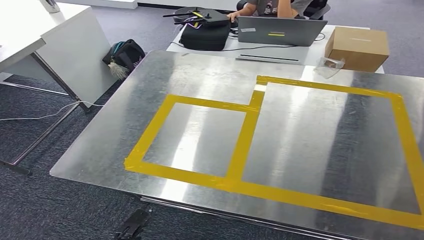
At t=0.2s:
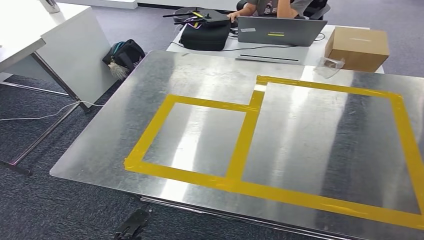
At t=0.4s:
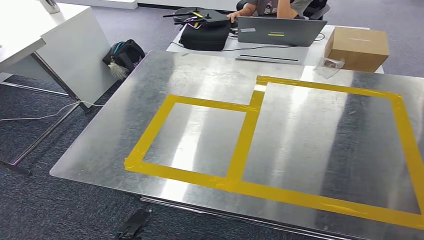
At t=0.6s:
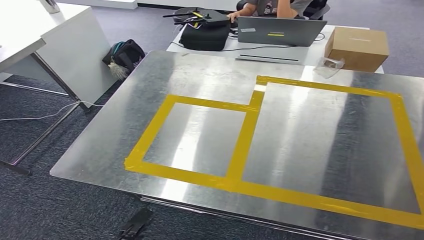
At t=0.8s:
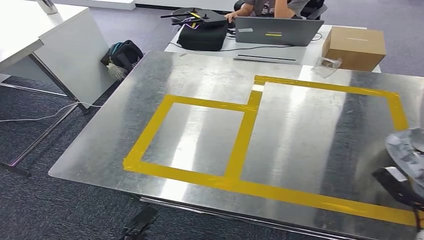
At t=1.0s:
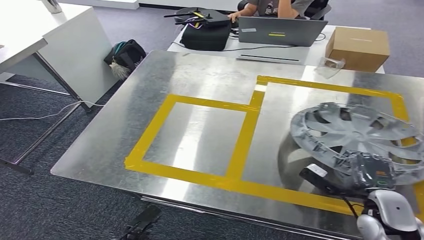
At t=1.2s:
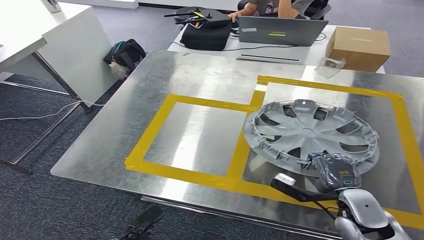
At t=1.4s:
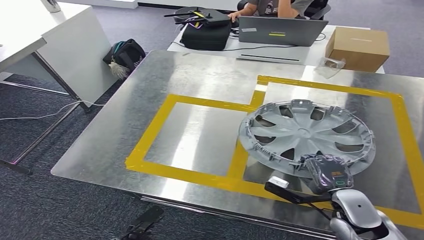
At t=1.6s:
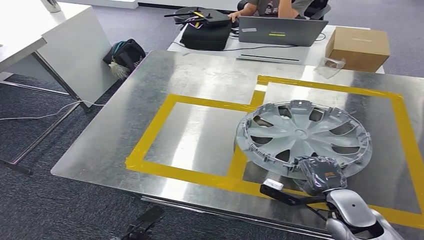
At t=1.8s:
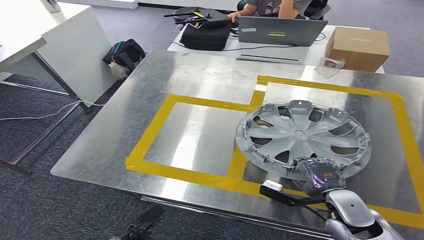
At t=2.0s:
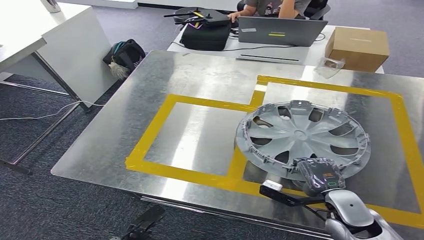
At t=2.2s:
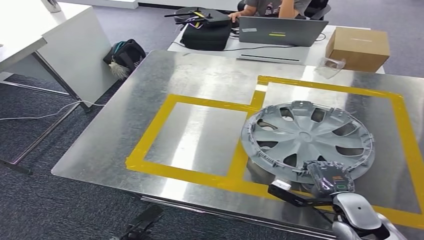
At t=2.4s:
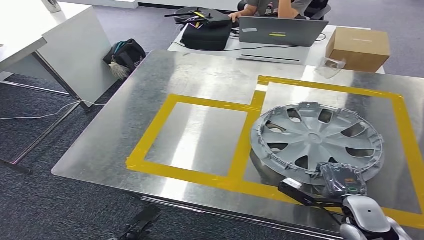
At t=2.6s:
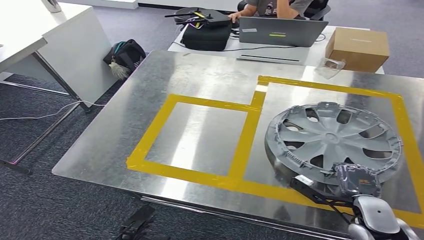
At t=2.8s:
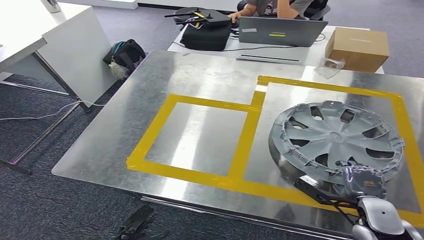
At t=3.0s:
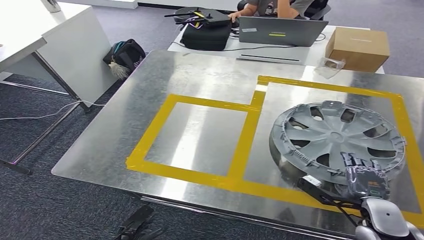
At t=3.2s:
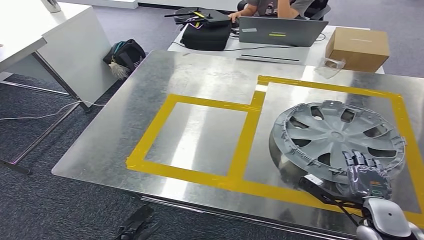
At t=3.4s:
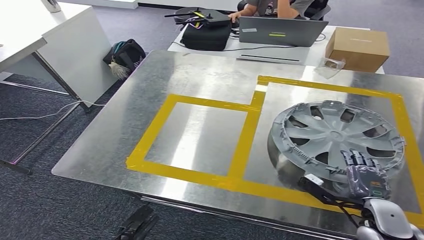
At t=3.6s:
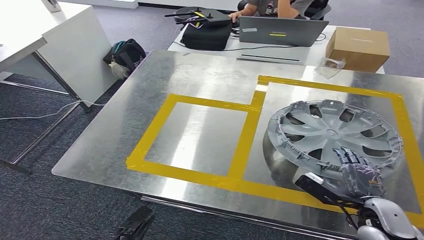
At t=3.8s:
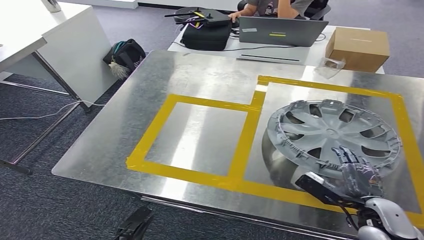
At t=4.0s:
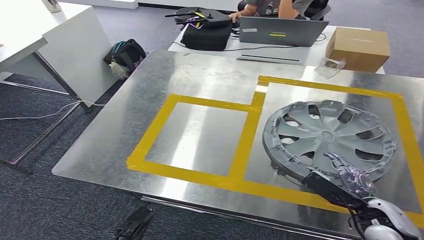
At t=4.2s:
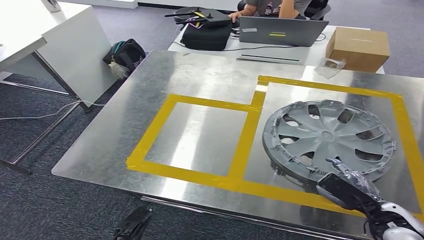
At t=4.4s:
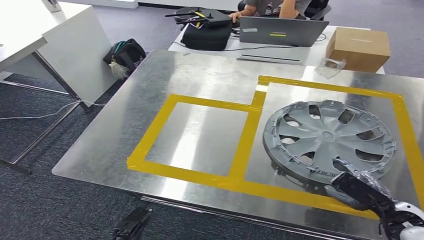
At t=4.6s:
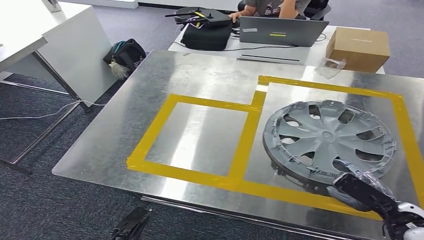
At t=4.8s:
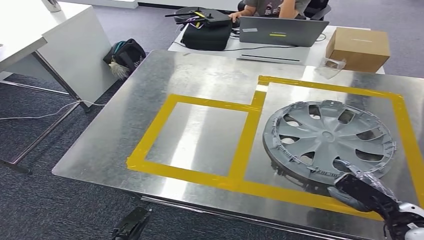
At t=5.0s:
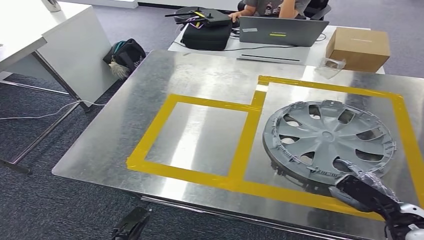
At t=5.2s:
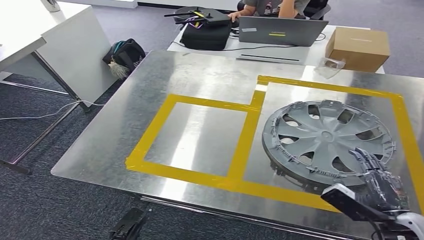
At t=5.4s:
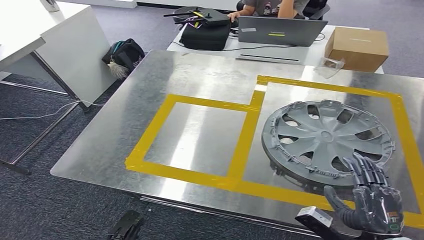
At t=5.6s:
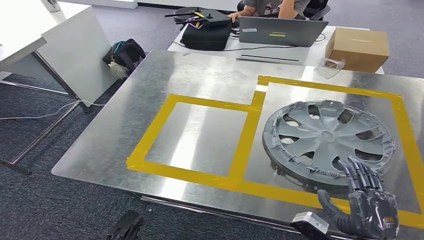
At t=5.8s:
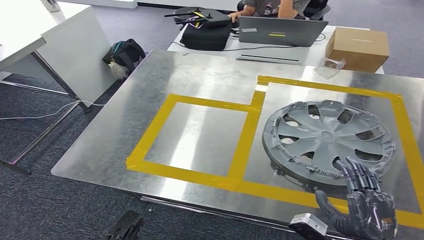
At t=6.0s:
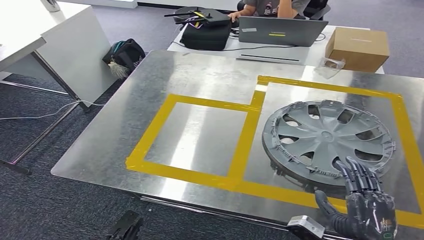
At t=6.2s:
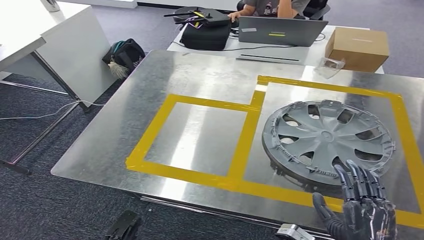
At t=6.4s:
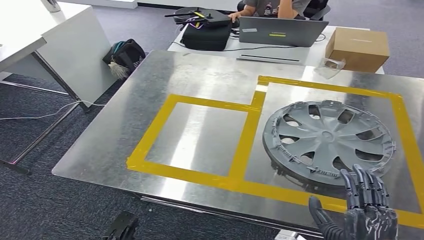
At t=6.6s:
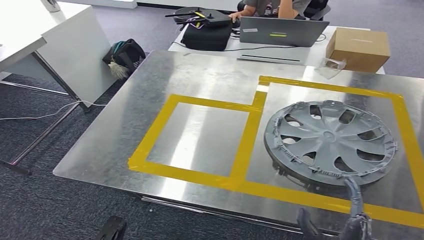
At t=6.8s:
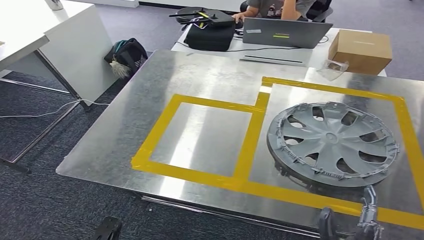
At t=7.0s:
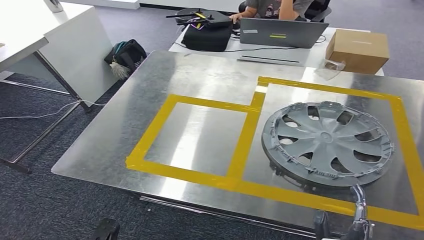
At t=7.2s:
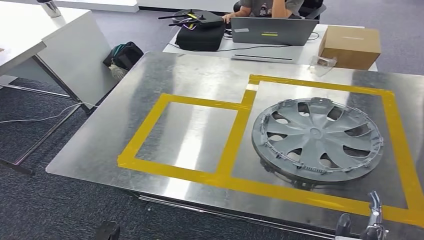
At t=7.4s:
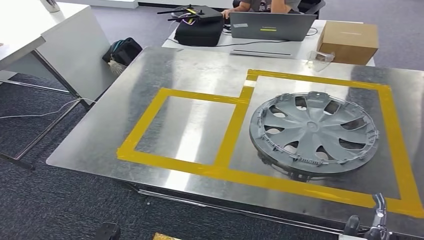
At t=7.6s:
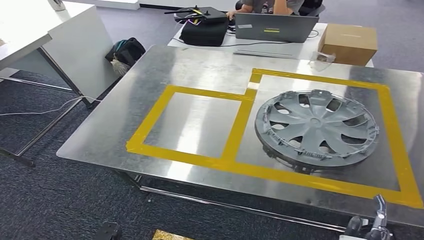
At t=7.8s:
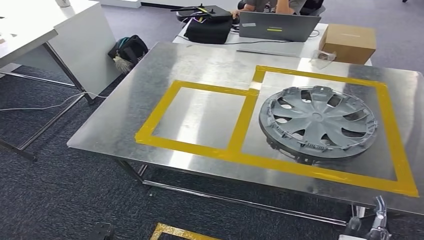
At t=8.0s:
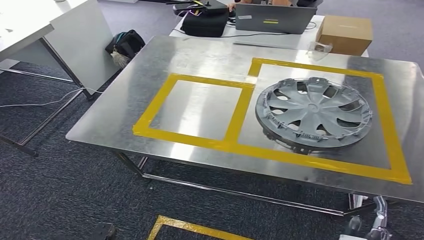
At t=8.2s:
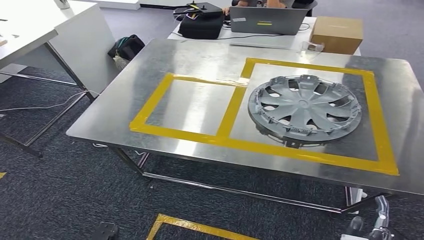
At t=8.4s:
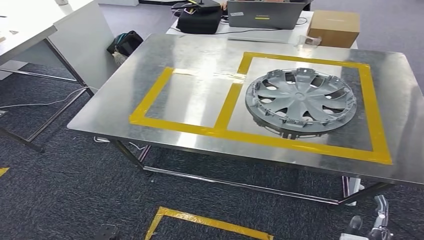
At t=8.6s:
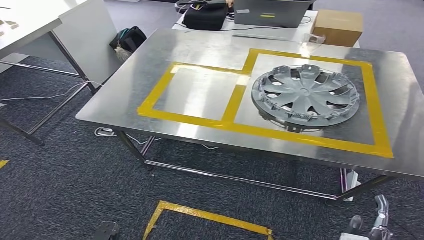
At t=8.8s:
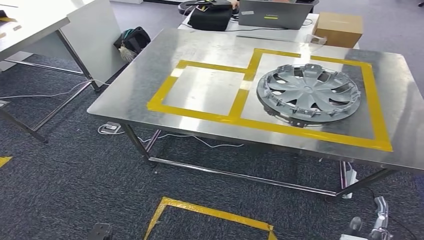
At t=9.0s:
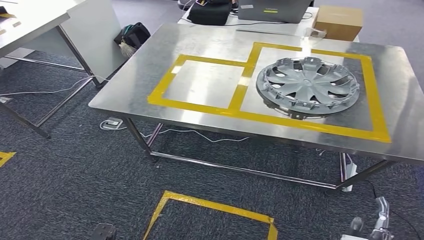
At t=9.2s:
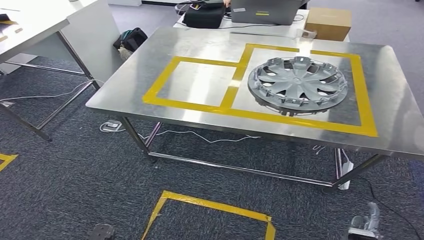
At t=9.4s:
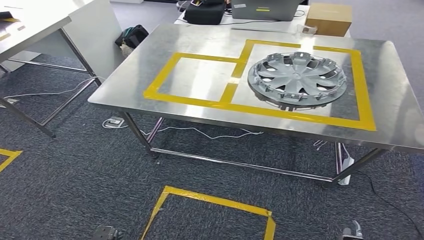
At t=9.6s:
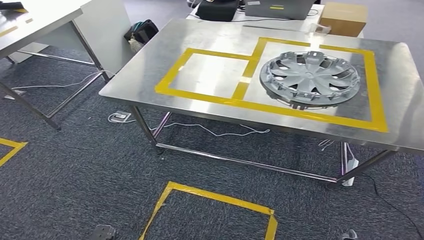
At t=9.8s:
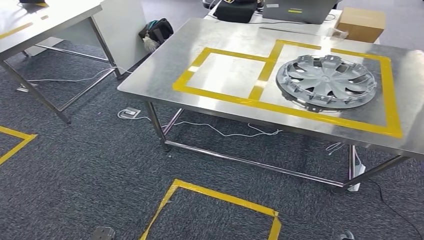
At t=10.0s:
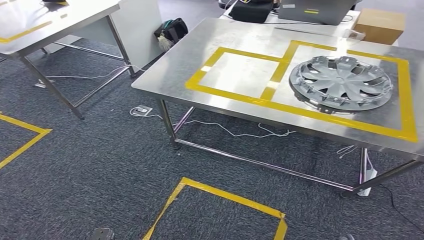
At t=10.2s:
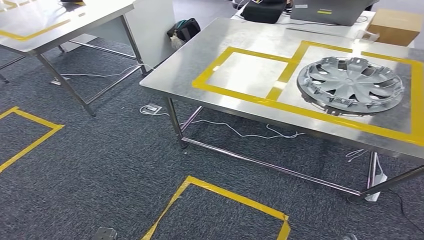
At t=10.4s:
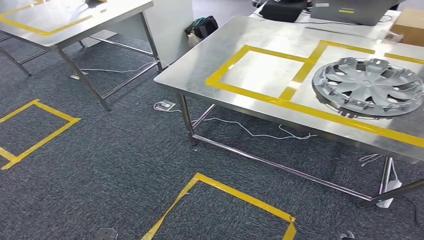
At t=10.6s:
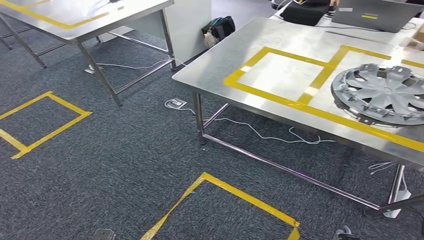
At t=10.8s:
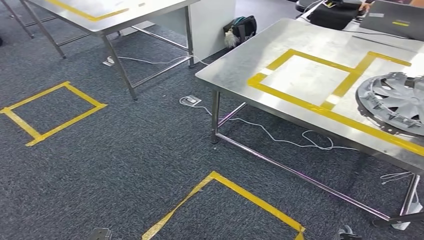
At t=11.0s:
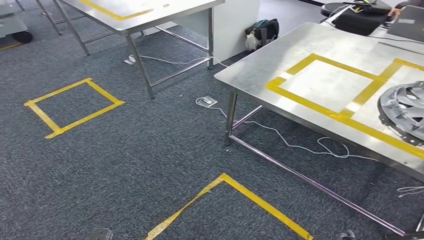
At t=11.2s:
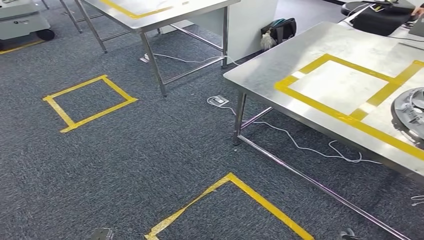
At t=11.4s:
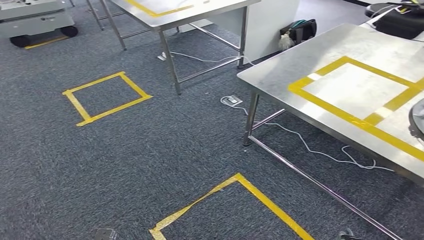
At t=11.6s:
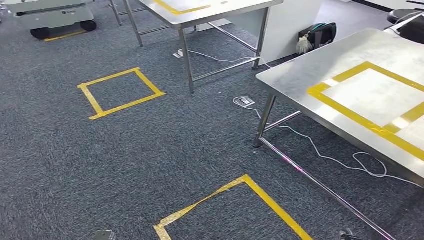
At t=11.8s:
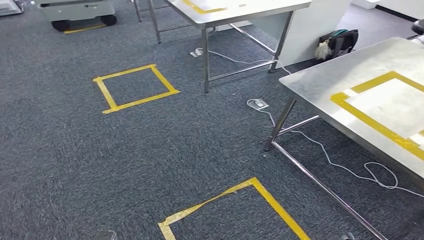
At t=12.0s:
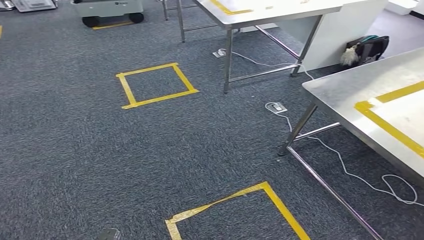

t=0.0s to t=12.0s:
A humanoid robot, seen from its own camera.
Step, t=0.0s to t=5.6s: Insert the small parts into the corresponding holes on the workbench.
t=0.0s to t=1.6s: The right hand is displaced to the left and forward by roughly 30 cm.
t=1.6s to t=3.0s: The right hand travels to the right by approximately 5 cm.
t=3.0s to t=4.4s: The right hand ends up about 5 cm from where it was.
t=4.4s to t=6.0s: The right hand moves to the left and backward, some 15 cm.

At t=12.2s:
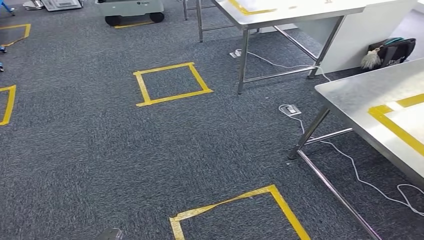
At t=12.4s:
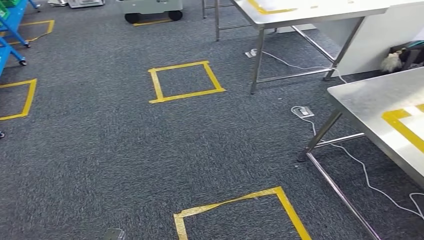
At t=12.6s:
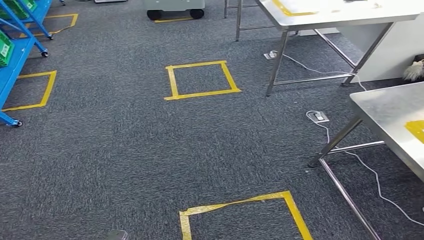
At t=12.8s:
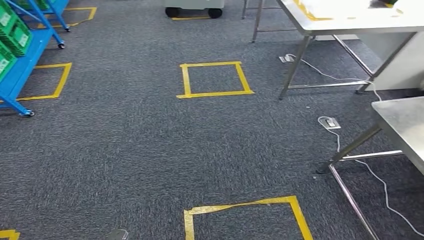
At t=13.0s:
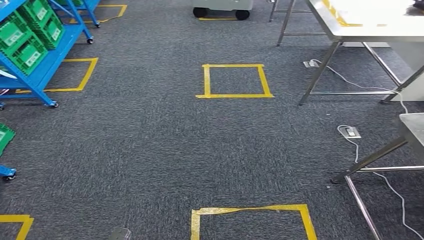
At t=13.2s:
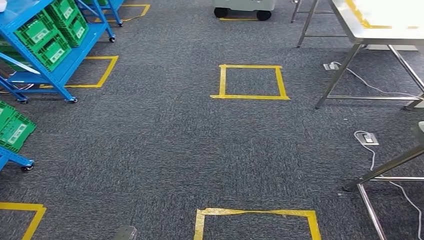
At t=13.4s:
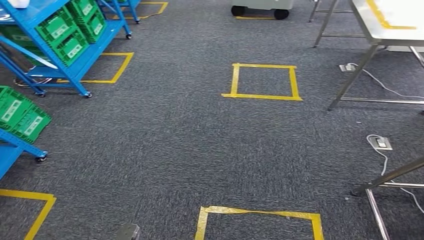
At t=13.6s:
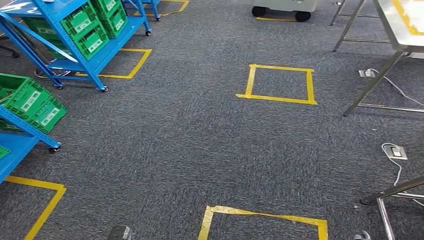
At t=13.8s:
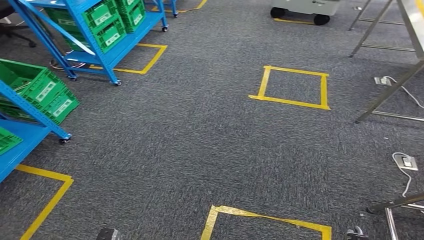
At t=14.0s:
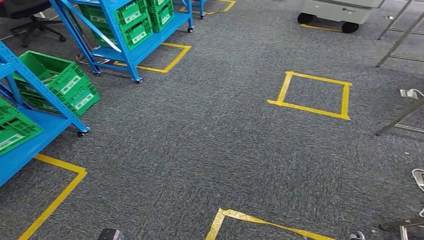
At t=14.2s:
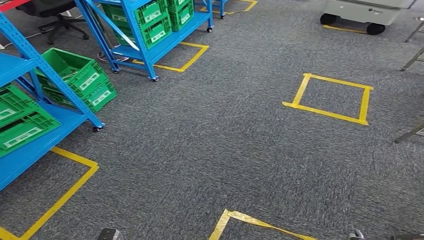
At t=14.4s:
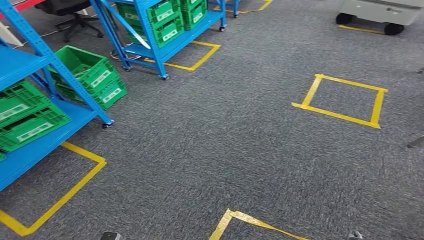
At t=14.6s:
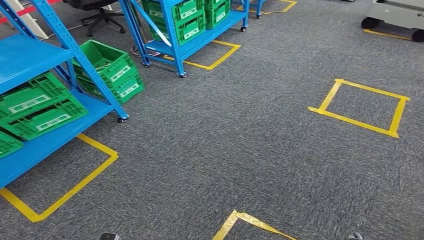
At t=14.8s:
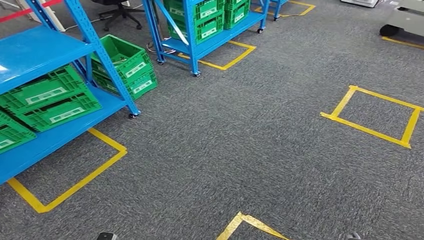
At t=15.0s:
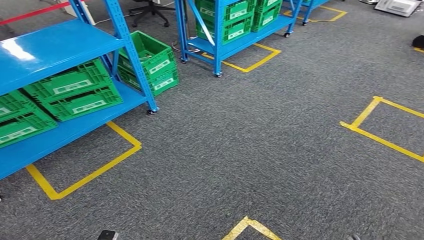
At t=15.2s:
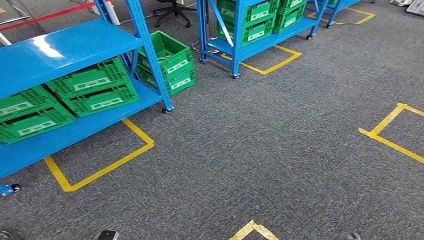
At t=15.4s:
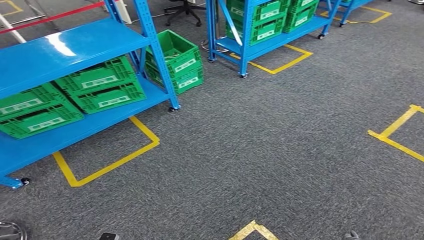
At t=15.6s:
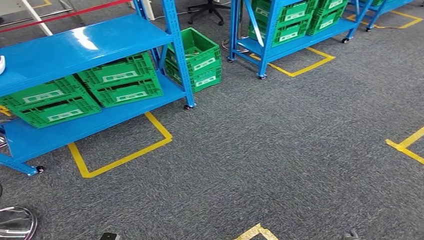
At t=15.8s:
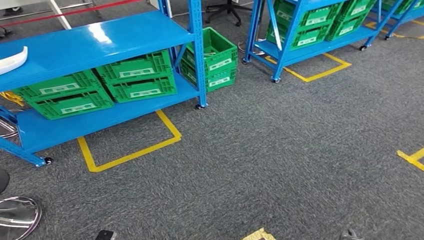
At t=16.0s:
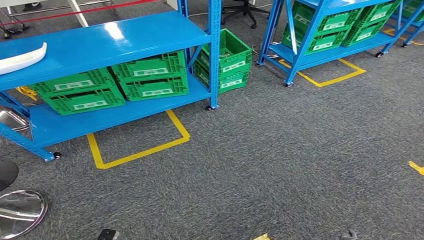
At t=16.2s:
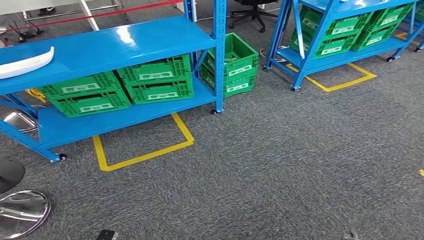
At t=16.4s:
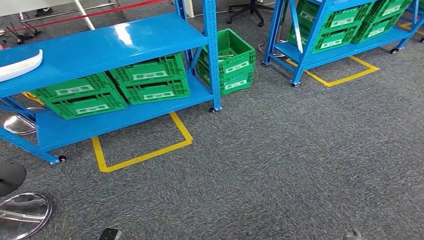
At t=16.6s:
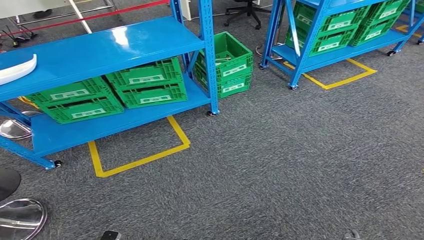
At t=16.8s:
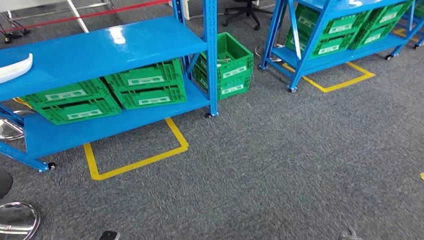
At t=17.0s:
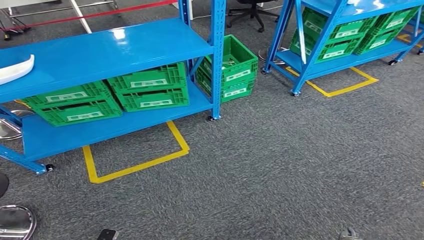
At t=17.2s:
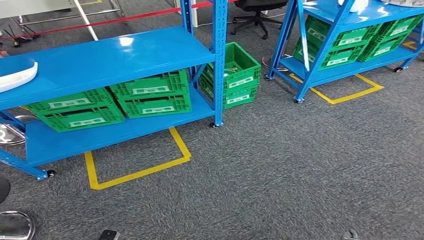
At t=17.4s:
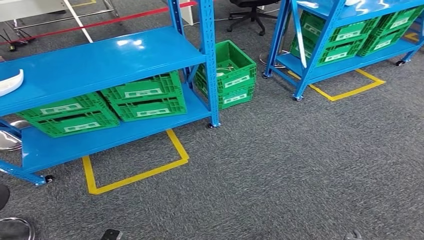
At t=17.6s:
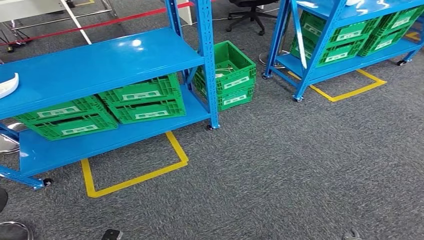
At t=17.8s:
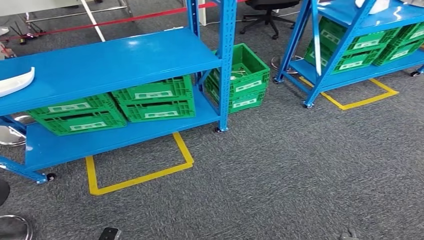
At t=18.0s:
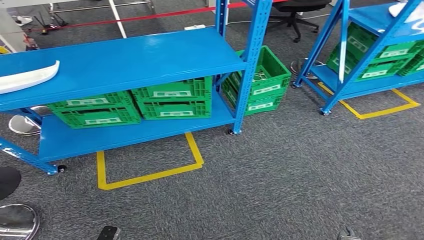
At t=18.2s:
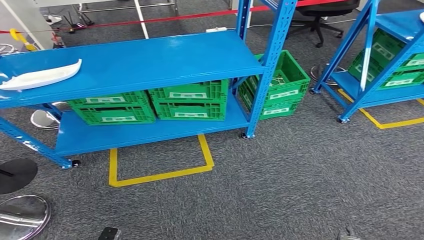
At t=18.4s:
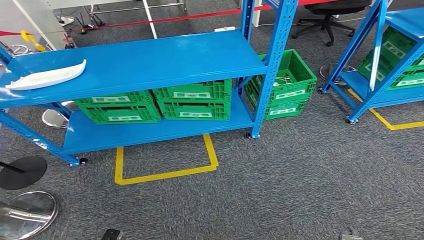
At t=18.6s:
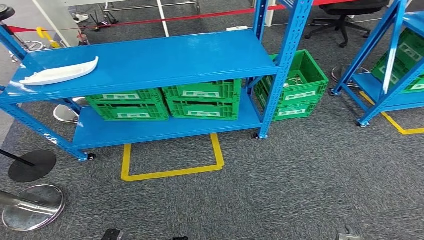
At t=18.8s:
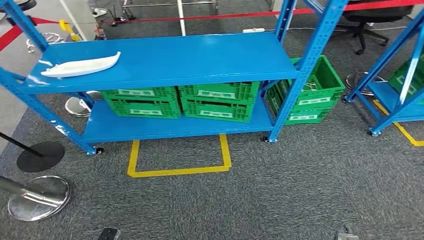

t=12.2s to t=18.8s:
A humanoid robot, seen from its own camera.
Step, t=12.2s to t=18.6s: Move to the initial position of the workbench.
